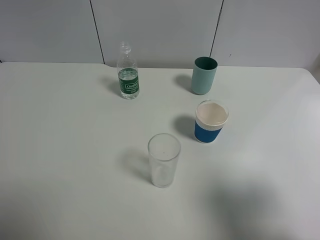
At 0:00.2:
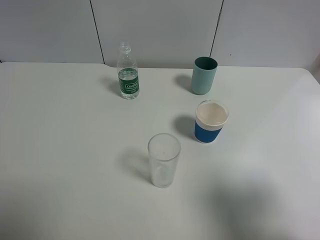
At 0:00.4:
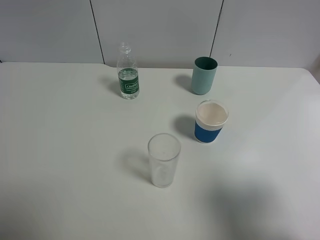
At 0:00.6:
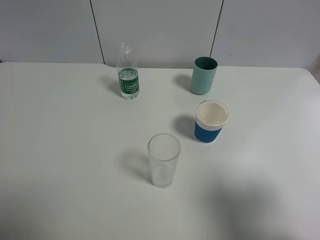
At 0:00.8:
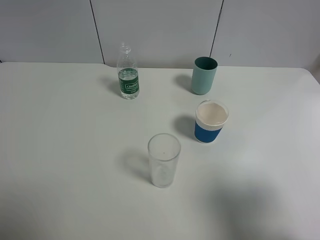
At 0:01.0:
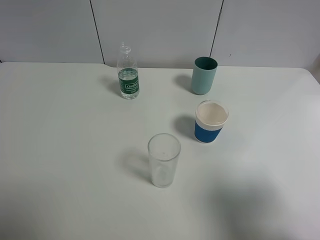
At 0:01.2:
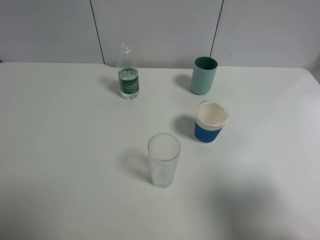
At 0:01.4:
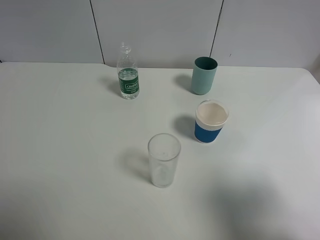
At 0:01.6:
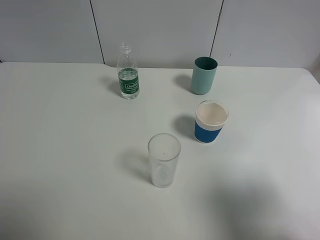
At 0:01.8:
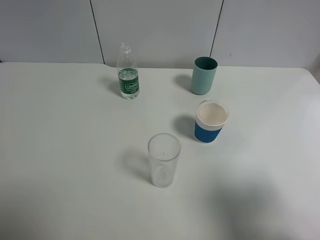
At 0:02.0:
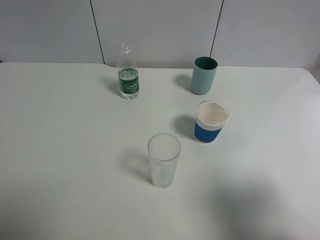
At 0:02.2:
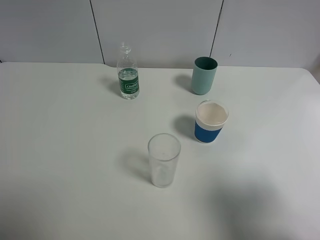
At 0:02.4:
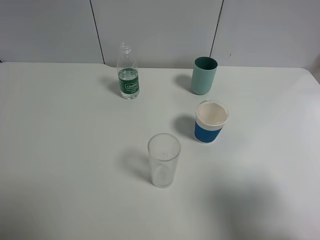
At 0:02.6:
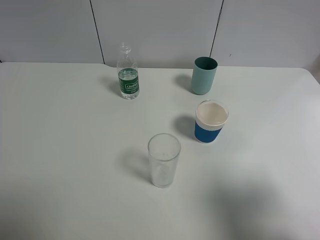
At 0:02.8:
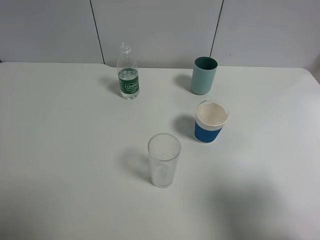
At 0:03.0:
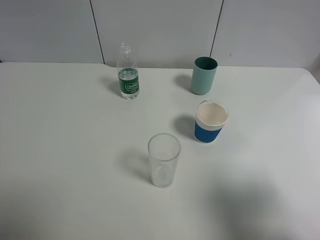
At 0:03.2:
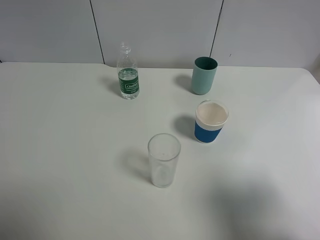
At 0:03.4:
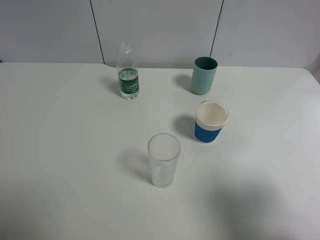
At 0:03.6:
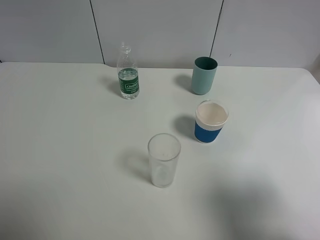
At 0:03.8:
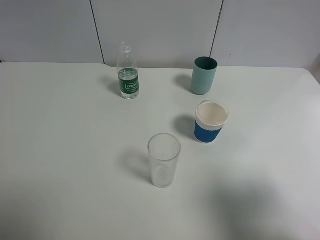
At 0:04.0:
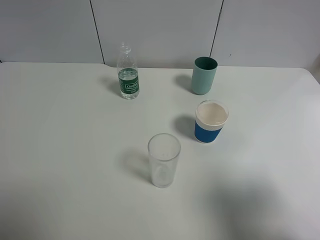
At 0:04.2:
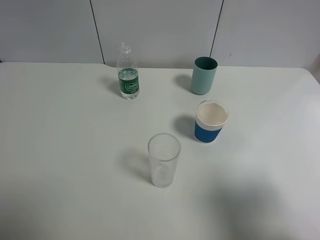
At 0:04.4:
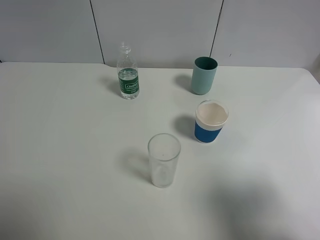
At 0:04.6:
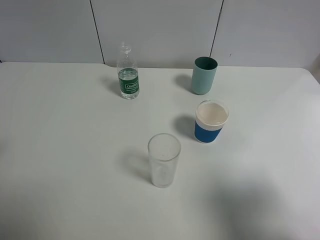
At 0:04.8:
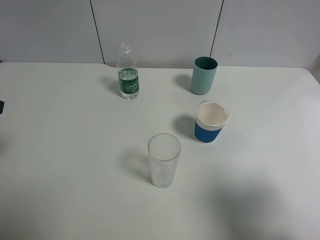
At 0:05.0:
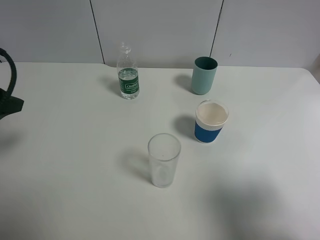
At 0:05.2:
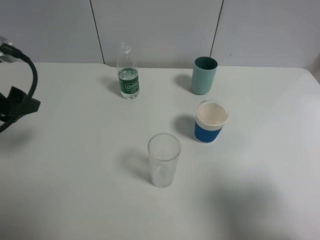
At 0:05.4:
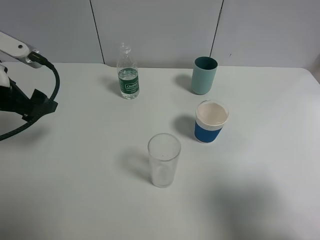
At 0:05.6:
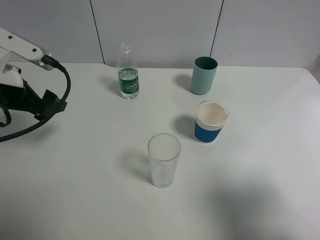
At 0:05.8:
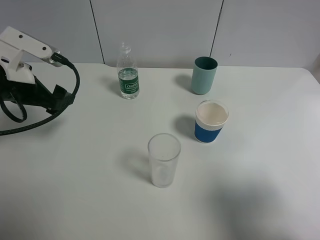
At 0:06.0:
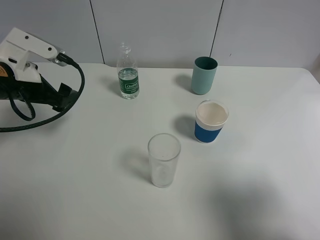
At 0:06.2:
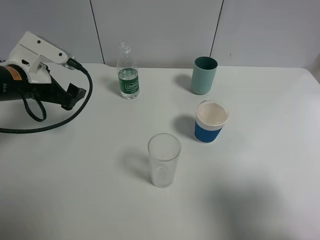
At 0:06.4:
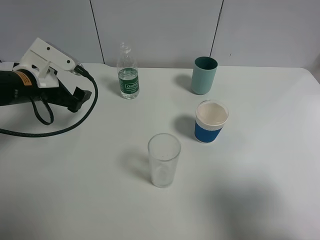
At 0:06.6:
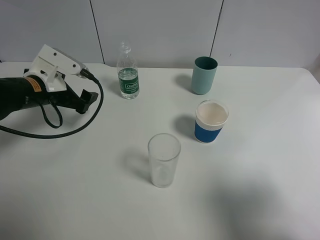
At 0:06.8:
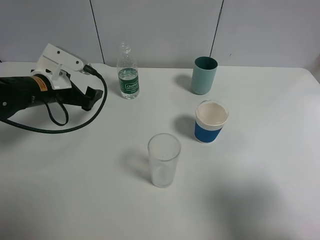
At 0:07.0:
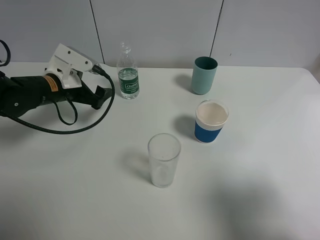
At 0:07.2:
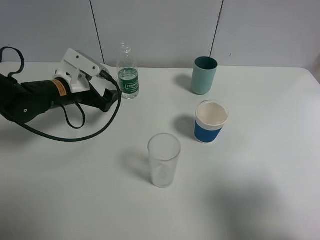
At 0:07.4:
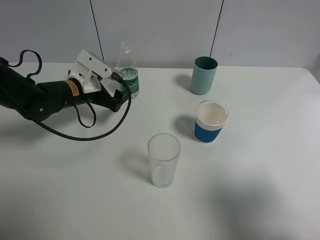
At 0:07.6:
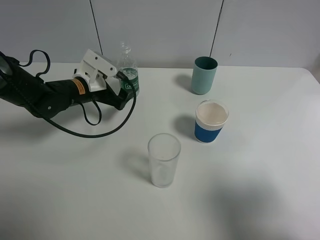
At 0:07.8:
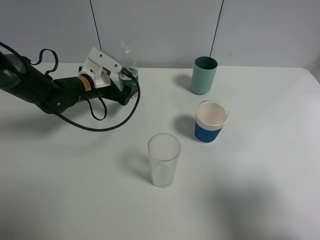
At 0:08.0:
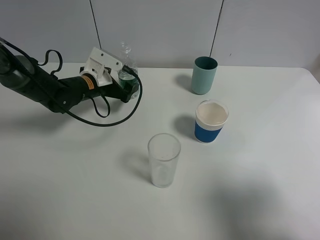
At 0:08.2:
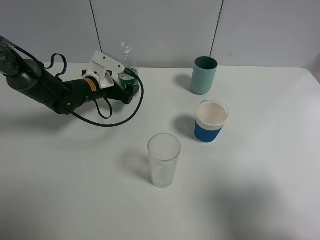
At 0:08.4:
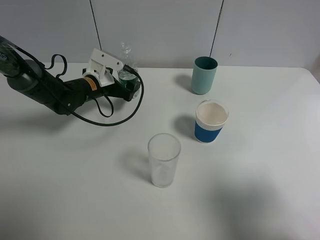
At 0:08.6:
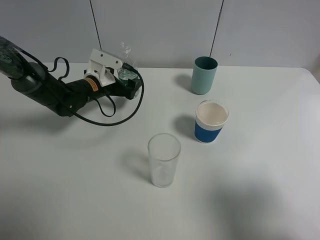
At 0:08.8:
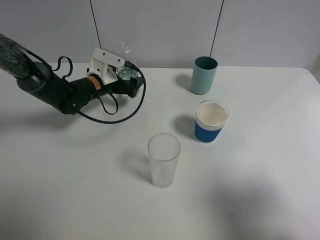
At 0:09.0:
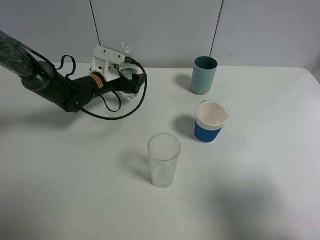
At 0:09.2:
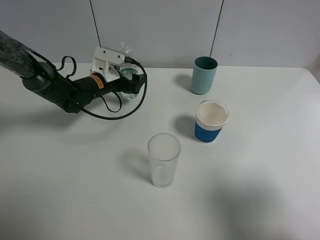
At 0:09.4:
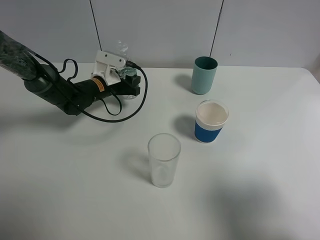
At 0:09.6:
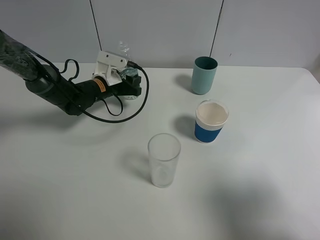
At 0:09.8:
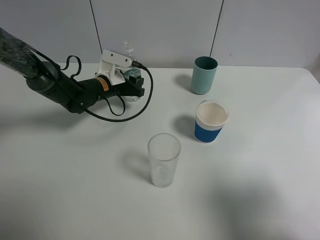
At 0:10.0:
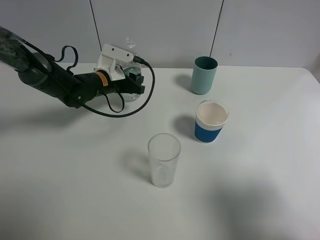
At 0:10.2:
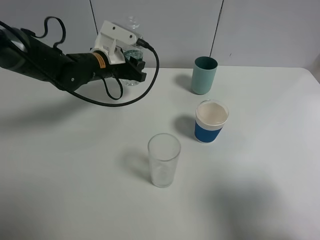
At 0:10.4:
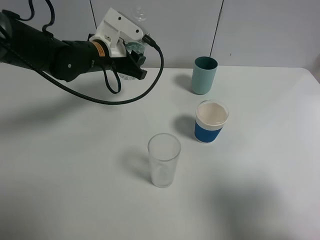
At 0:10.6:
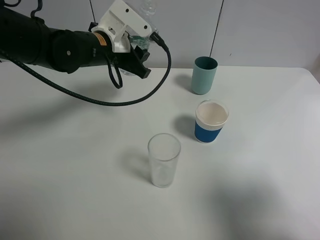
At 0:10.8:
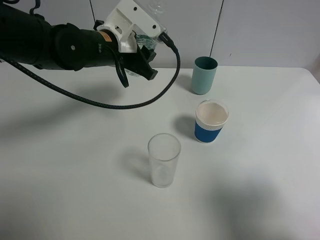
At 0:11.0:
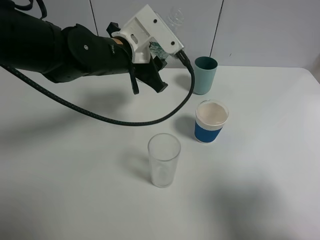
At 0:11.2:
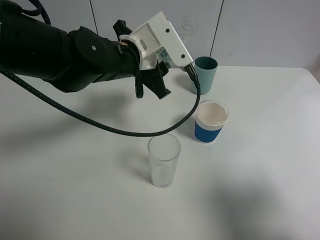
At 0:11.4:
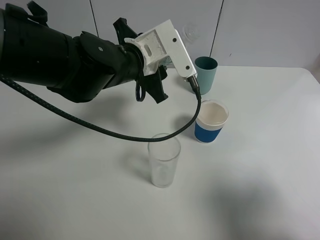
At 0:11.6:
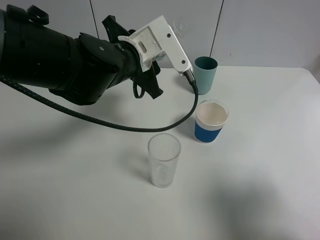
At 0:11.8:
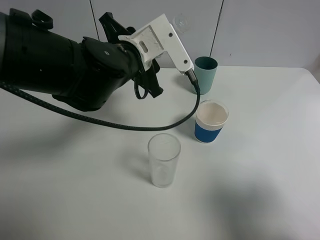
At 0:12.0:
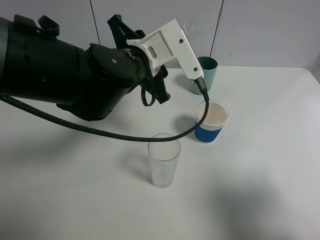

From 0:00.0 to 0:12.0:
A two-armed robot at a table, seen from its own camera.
Task of the whole recording: use a gripper to hold the bottle of the drink and pour it into a random cup.
Step, from 0:00.0 to 0:09.8: Grasp the mineral water bottle with the left gripper.
From 0:00.0 to 0:03.0: Neither gripper changes place.
From 0:04.4 to 0:06.0: The left gripper goes about 20 cm forward and downward.
From 0:06.0 to 0:07.6: The left gripper travels downward, forward and to the right by some 15 cm.
From 0:07.6 to 0:09.0: The left gripper shifts about 5 cm forward.
From 0:09.0 to 0:10.4: The left gripper moves upward, about 10 cm, and closes up.
From 0:10.4 to 0:12.0: The left gripper shifts about 10 cm backward and to the right.

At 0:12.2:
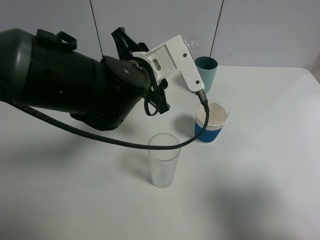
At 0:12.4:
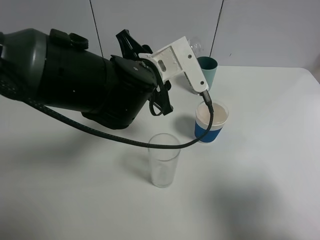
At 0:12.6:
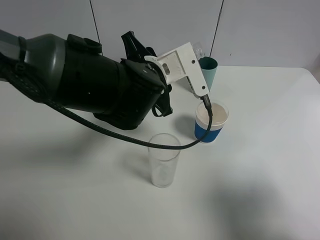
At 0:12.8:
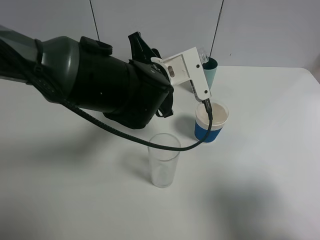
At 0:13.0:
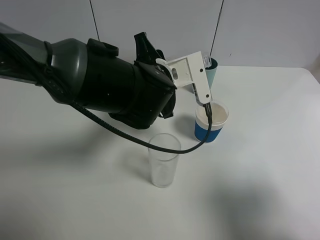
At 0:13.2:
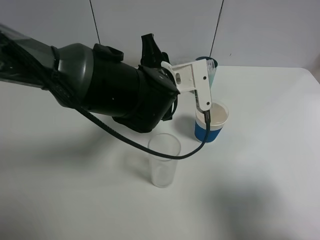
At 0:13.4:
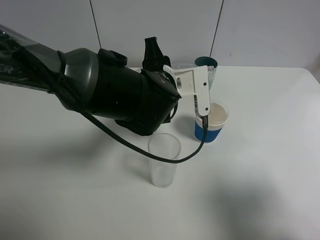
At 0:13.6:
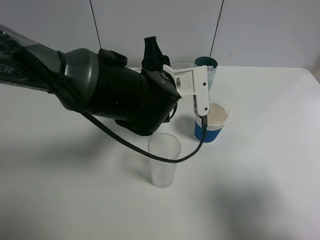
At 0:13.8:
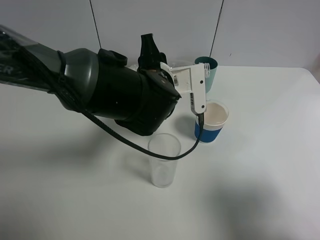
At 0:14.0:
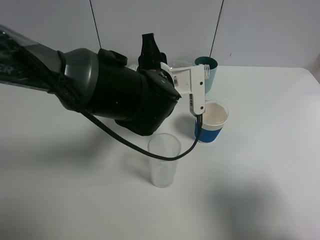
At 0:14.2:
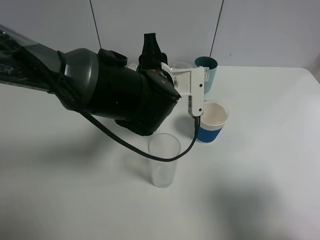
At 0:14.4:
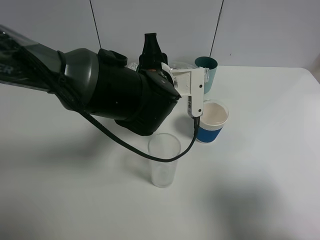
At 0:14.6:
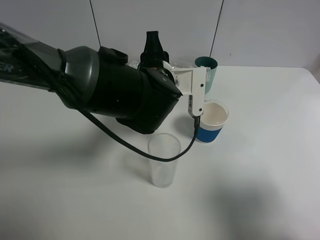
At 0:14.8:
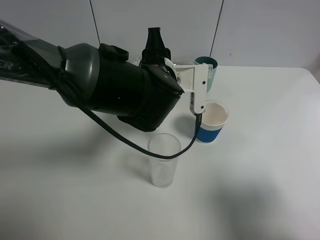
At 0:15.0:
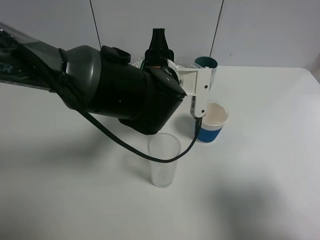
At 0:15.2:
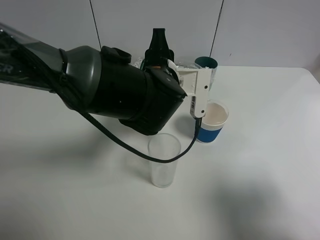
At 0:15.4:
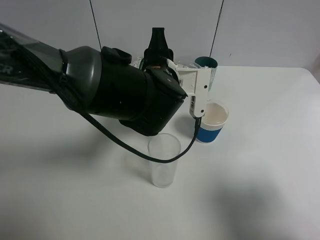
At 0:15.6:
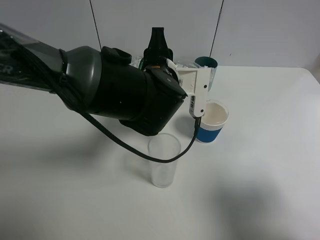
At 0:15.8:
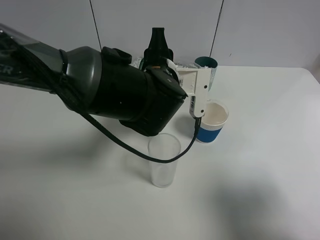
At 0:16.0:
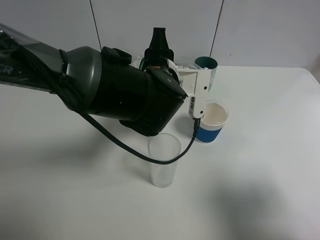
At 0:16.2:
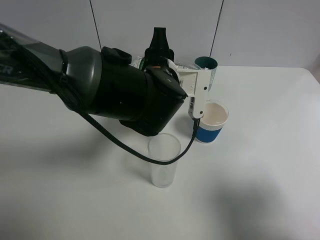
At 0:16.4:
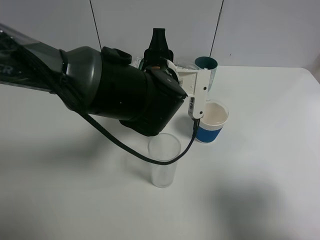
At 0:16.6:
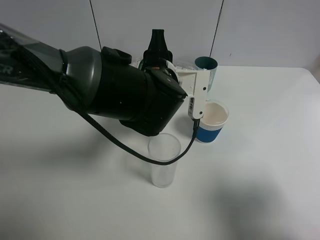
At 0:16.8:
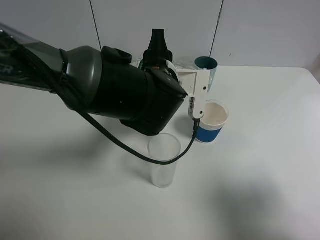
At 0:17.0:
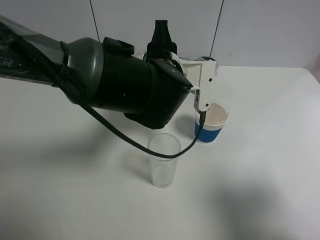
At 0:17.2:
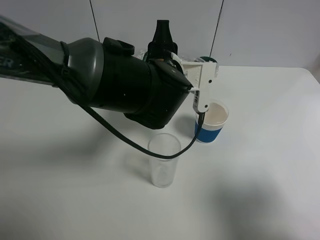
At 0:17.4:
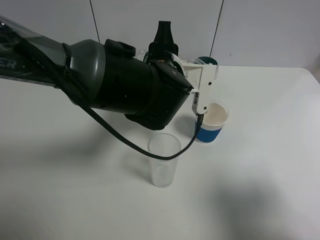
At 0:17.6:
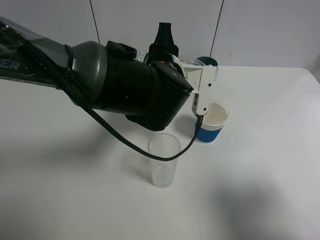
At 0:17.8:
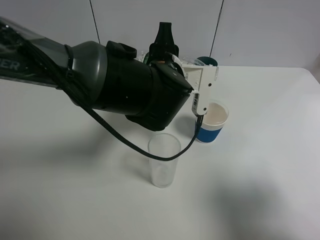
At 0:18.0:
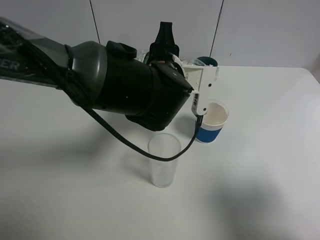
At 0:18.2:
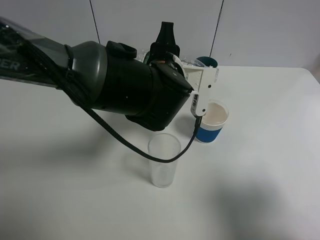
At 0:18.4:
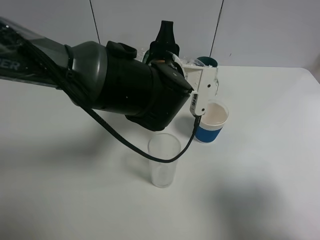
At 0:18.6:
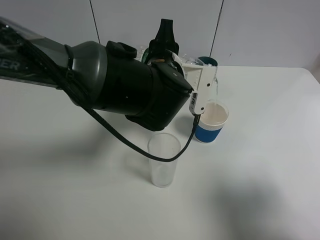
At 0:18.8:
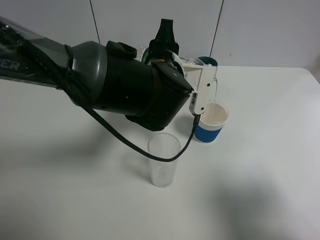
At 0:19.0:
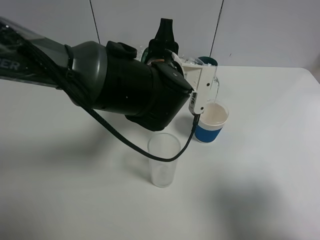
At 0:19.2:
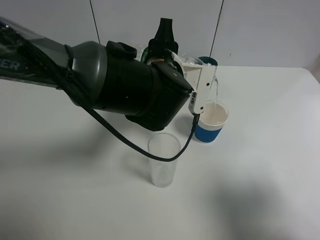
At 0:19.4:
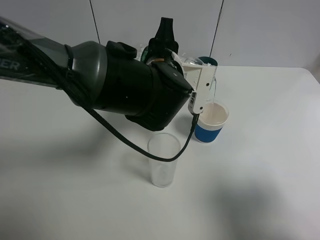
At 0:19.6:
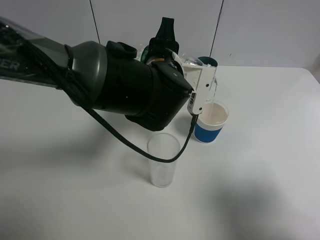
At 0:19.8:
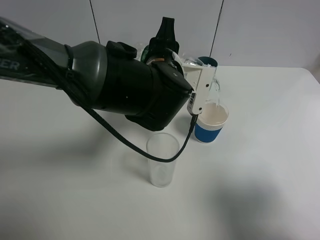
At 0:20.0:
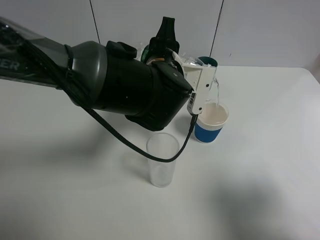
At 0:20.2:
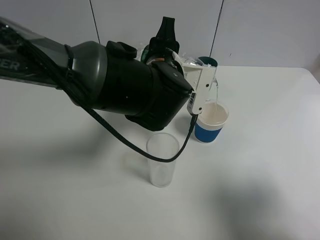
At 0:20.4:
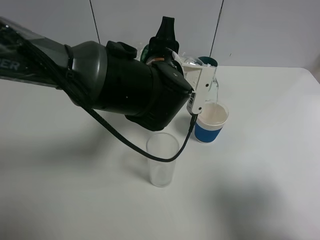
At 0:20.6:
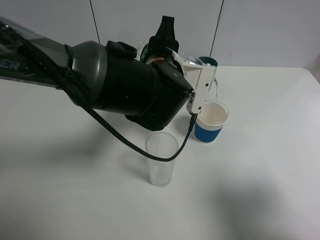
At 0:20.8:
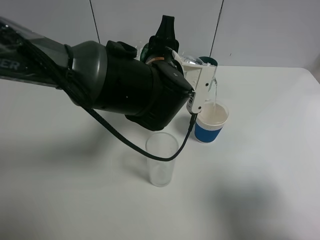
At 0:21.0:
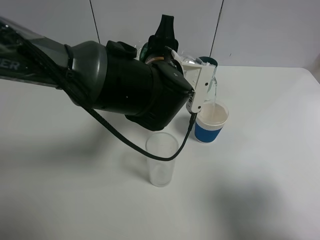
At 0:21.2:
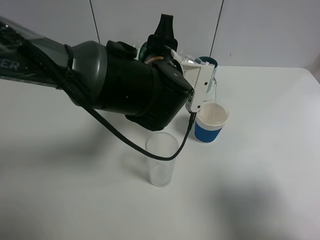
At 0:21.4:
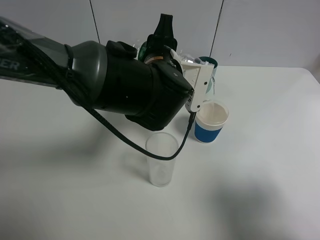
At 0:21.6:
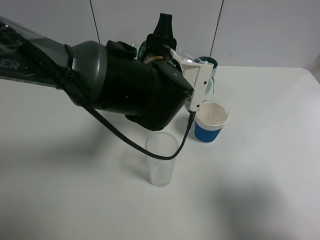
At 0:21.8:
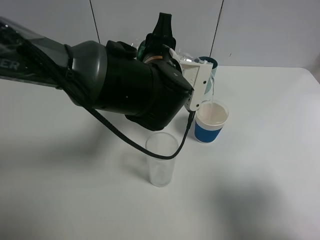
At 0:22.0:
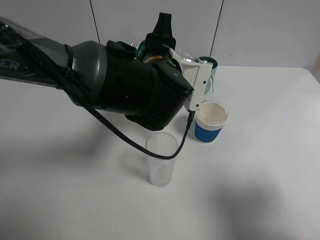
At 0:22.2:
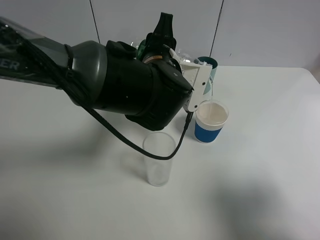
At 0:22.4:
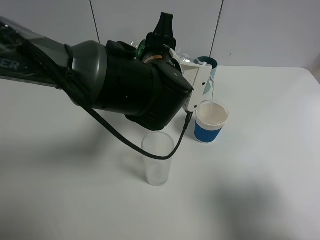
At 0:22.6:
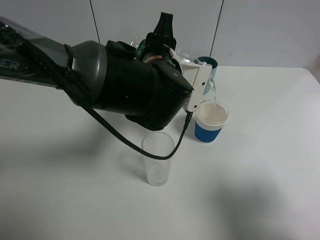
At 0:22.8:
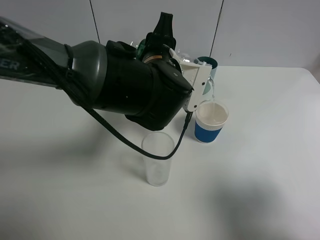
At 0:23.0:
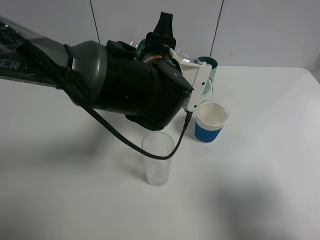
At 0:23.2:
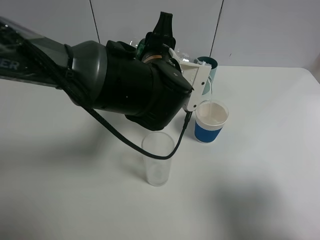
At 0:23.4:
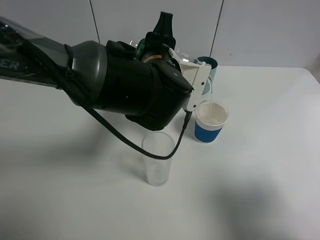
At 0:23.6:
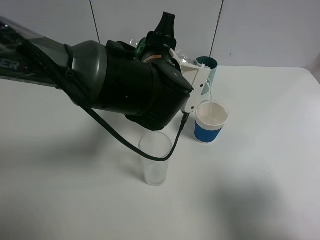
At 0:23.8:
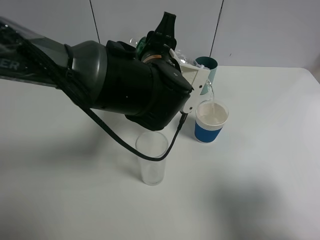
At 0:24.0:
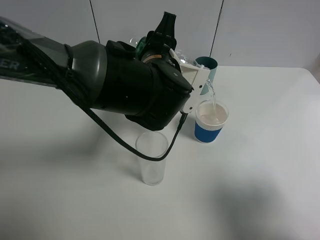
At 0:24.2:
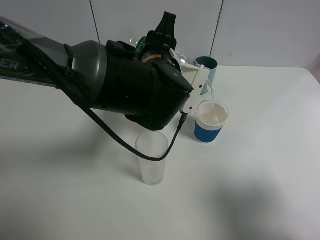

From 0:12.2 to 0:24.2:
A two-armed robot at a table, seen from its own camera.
Task of the whole recording: use a gripper to hold the bottle of the drink and pour it into a random cup.
From 0:13.8 to 0:15.2: The grippers make only small movements.
From 0:15.2 to 0:16.6: Both grippers stay about where they are.
From 0:16.6 to 0:18.2: The two grippers keep their place.
From 0:18.2 to 0:19.8: The two grippers keep their place.
From 0:19.8 to 0:22.6: The two grippers keep their place.
From 0:22.6 to 0:24.2: There are only small adjustments of the grippers.
